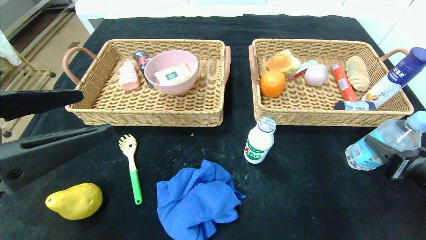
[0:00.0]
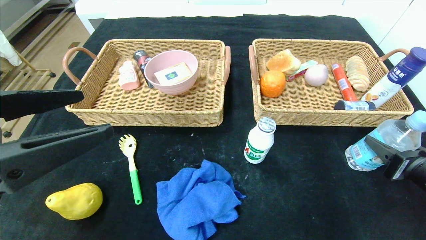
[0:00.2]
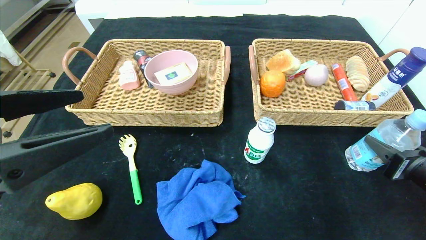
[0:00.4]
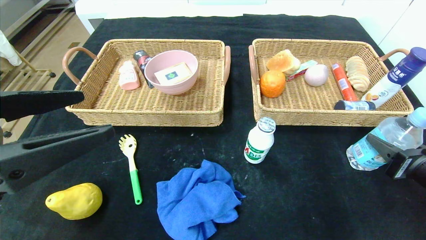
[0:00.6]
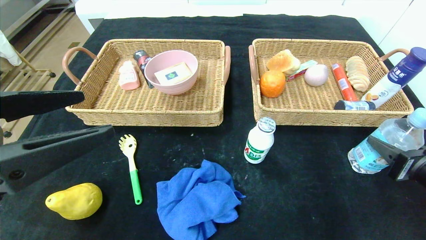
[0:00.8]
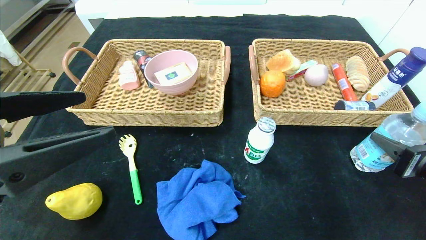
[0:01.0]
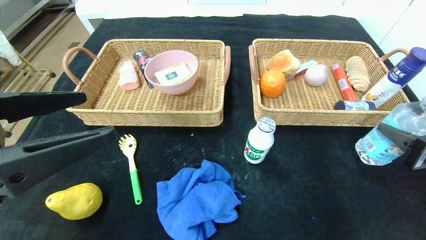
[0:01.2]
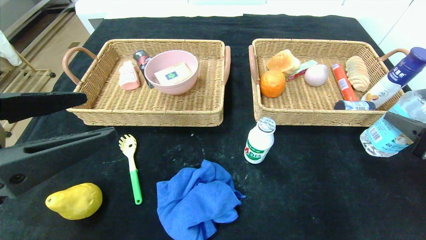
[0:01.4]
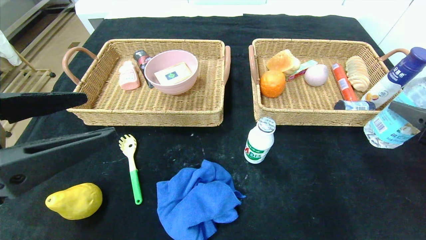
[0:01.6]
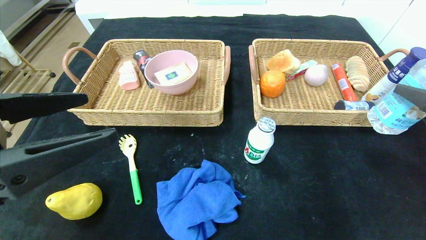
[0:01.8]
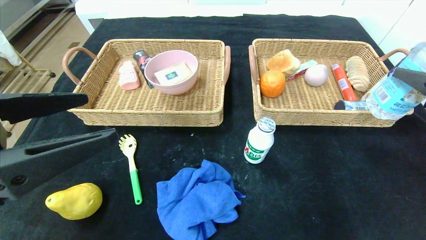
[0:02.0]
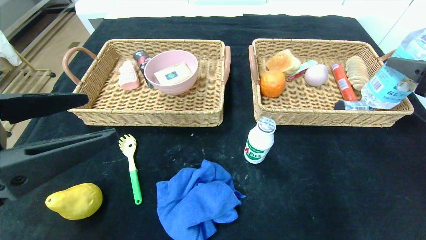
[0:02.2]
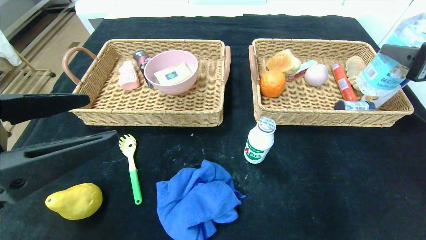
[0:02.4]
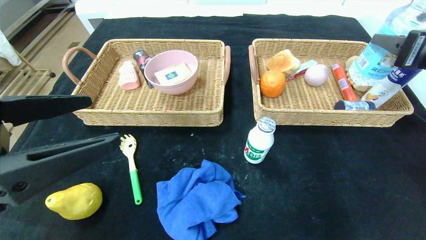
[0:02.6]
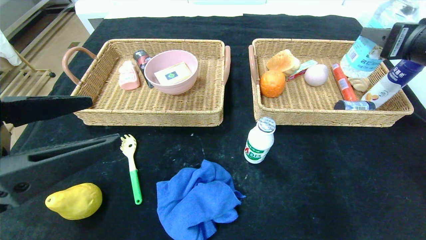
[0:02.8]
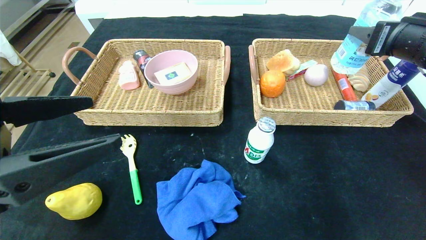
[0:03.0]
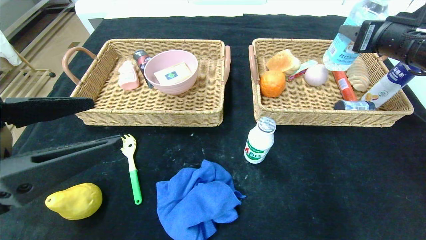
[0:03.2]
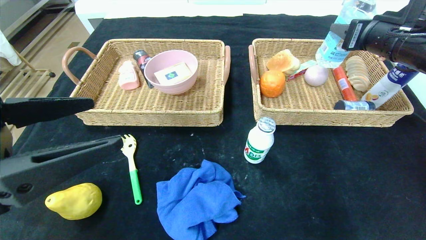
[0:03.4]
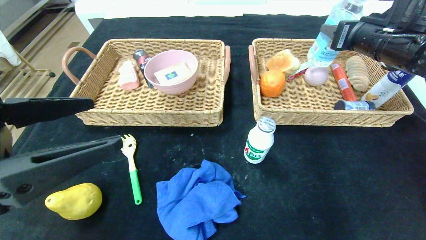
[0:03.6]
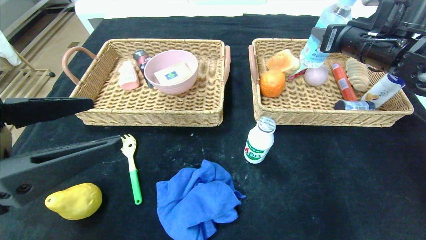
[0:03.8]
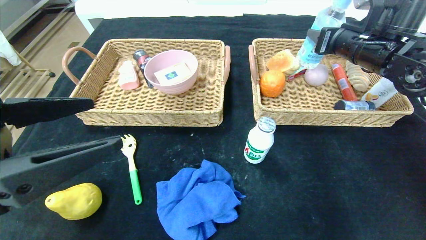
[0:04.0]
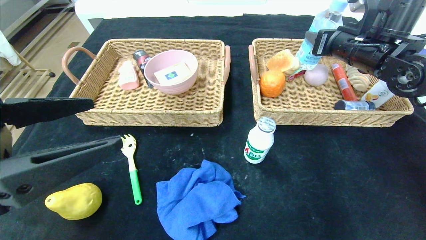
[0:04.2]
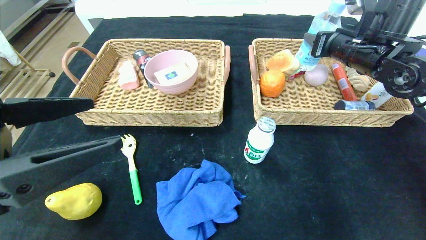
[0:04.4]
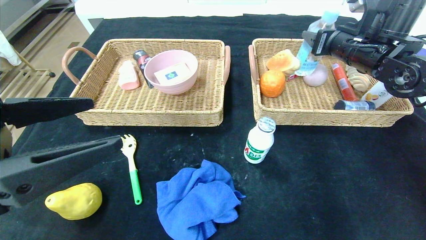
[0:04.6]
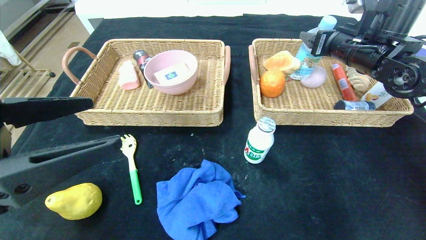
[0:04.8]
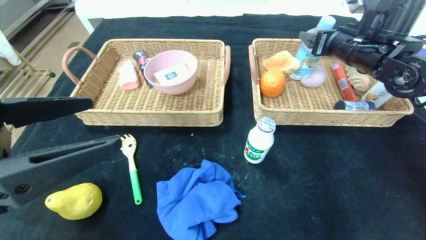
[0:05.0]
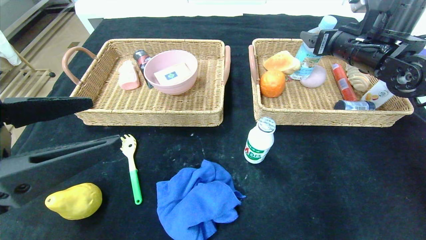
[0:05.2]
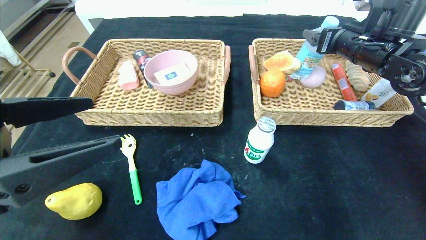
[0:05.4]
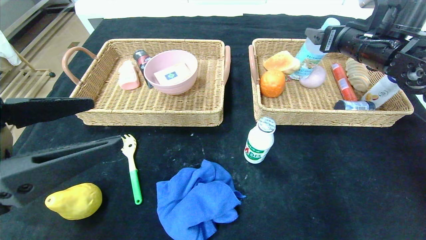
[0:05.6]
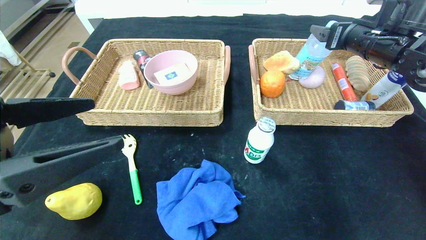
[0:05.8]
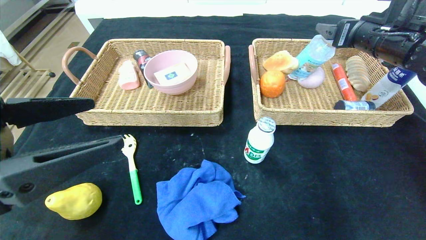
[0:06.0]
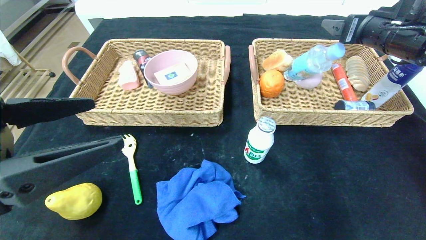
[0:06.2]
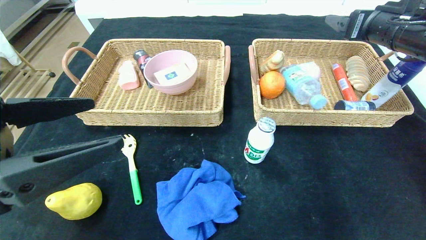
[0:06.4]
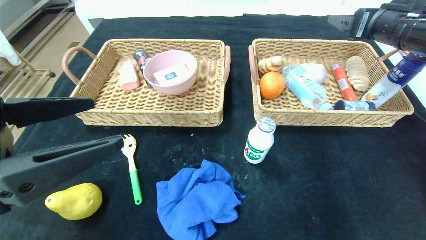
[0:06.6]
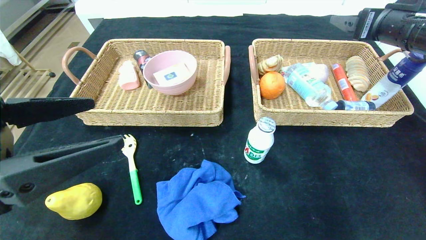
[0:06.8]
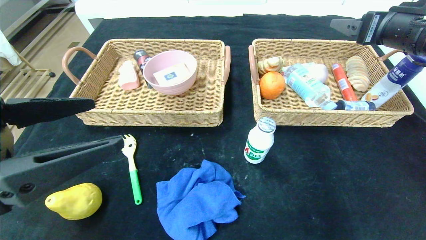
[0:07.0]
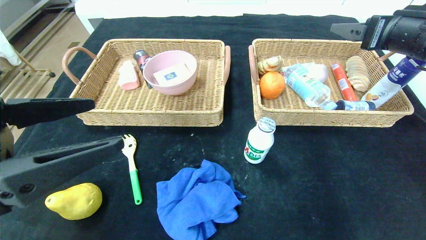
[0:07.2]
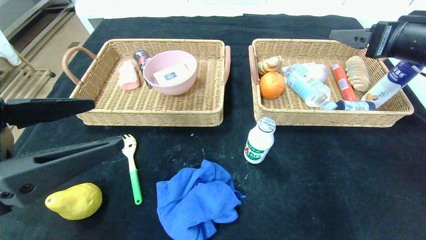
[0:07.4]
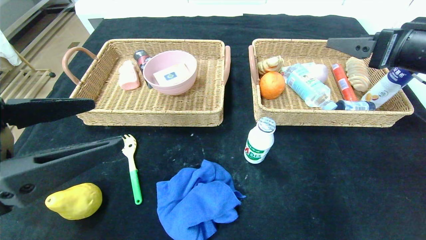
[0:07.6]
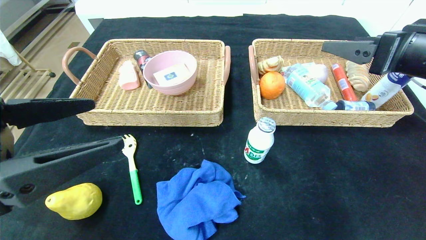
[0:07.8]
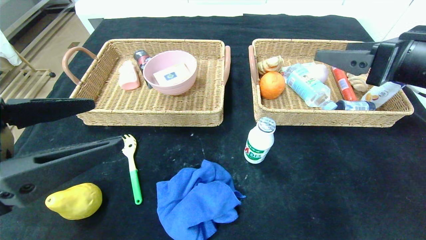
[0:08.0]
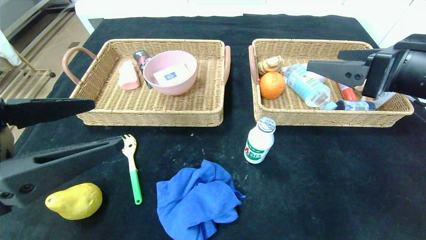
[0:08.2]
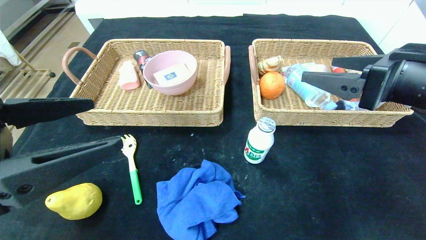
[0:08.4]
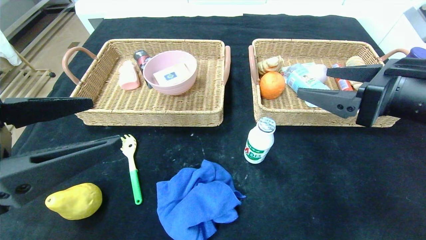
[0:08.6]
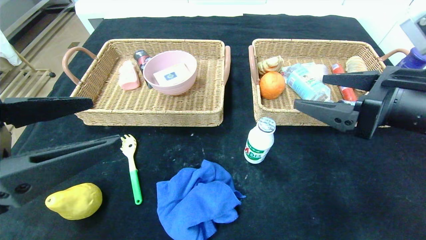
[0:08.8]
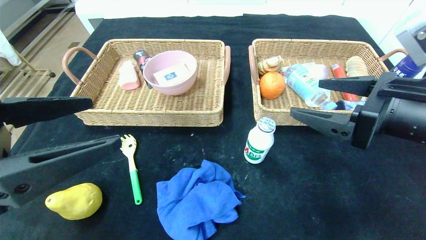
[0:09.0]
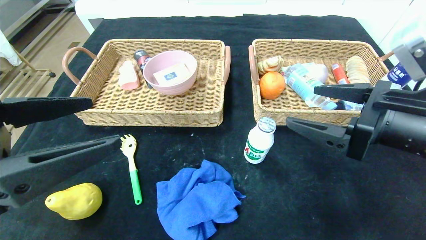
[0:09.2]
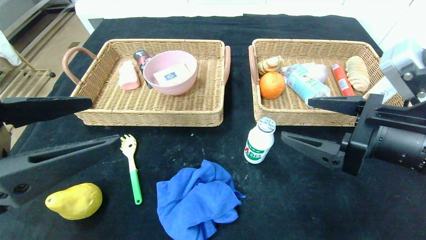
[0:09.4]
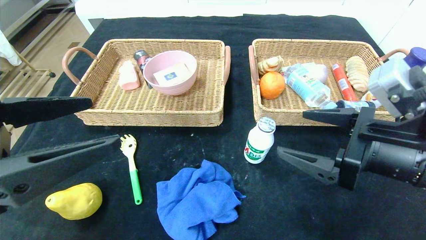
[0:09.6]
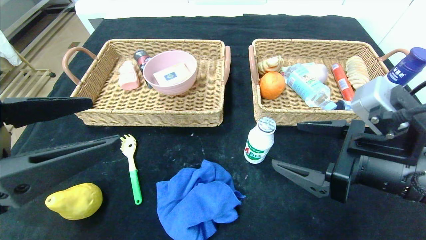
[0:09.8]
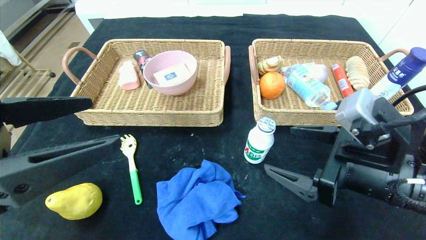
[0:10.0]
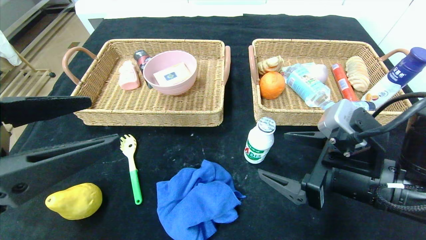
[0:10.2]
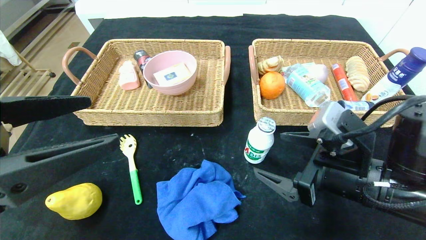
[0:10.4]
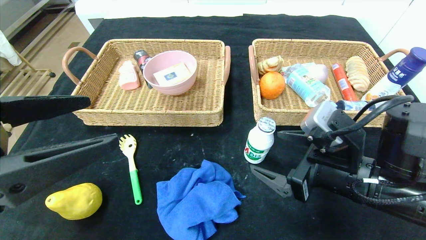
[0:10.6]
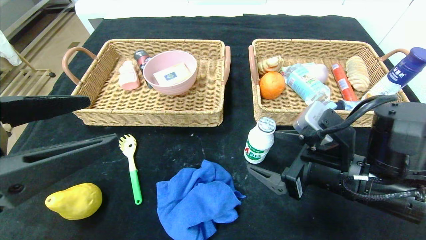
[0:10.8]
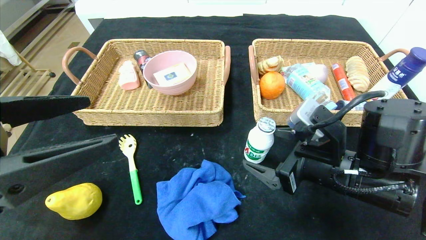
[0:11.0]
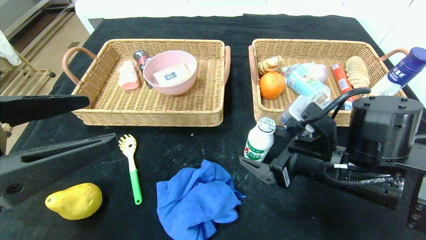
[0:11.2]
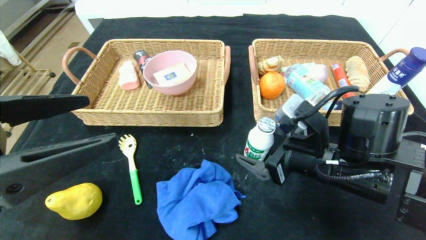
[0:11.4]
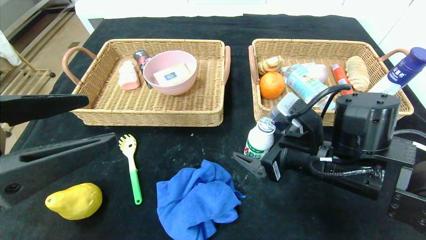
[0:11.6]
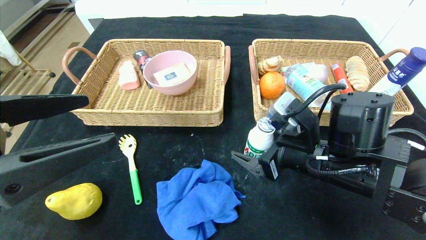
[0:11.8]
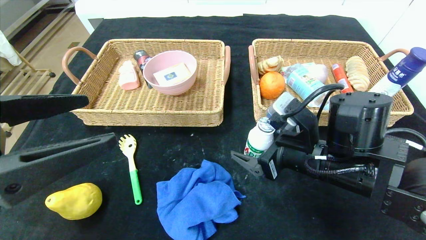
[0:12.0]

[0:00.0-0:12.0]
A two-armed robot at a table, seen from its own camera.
Step, 0:00.0 to 0:06.6: Grasp the soda water and put it in the right basket.
0:00.0 to 0:01.6: The right gripper moves upward, some 10 cm.
0:01.6 to 0:03.0: The right gripper travels forward and upward by roughly 15 cm.
0:03.0 to 0:04.4: The right gripper is displaced forward by some 10 cm.
0:04.4 to 0:06.0: The right gripper opens.
0:06.0 to 0:07.6: The right gripper travels backward by roughly 10 cm.
0:07.6 to 0:09.0: The right gripper moves backward, to the left and downward, approximately 10 cm.
0:09.0 to 0:10.4: The right gripper goes about 10 cm downward.
0:10.4 to 0:12.0: The right gripper shifts by approximately 5 cm.

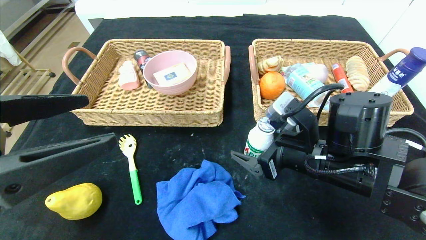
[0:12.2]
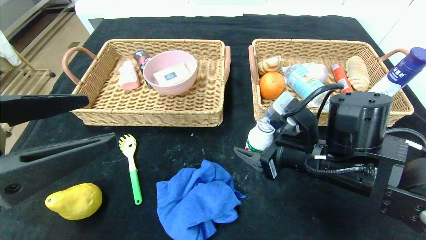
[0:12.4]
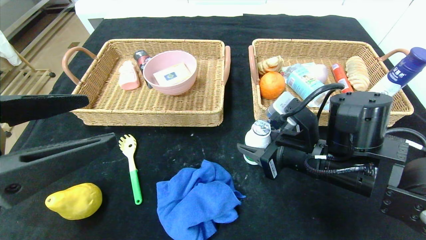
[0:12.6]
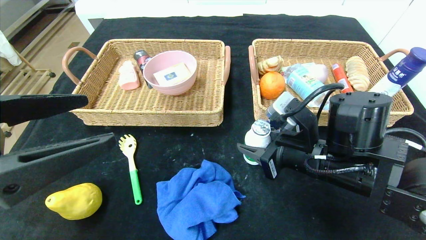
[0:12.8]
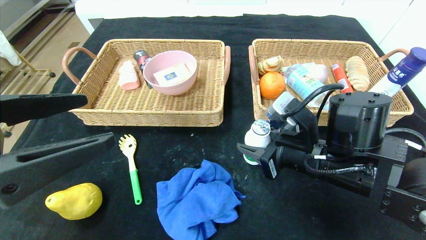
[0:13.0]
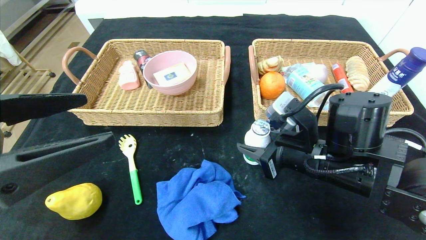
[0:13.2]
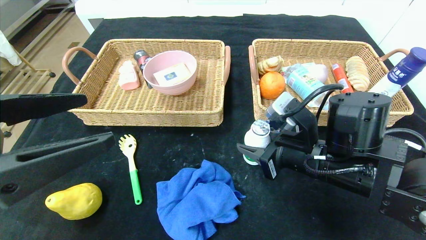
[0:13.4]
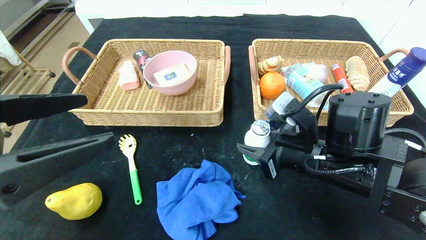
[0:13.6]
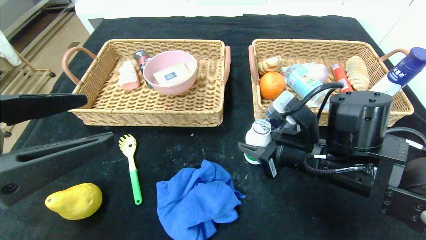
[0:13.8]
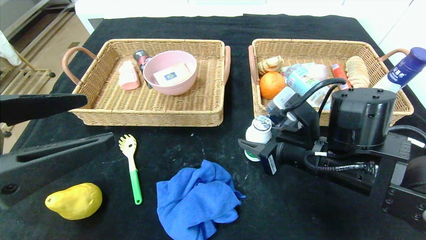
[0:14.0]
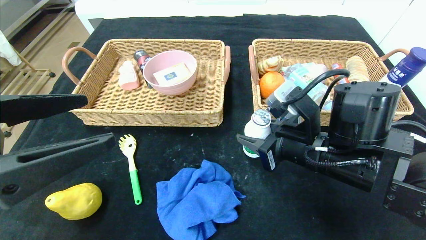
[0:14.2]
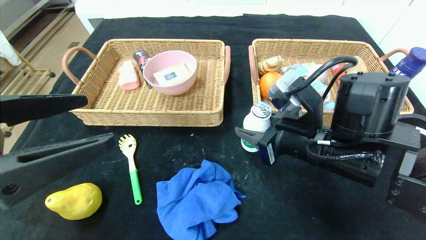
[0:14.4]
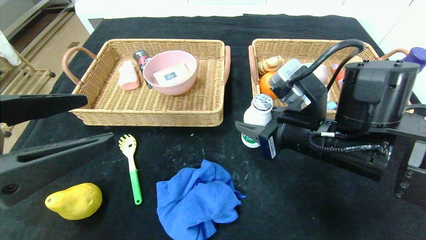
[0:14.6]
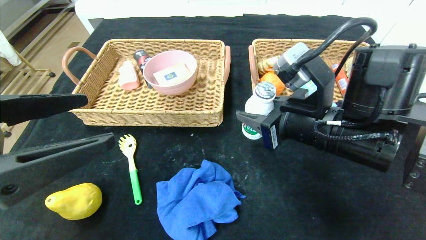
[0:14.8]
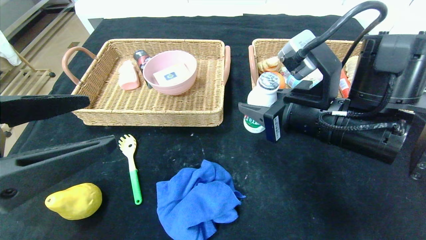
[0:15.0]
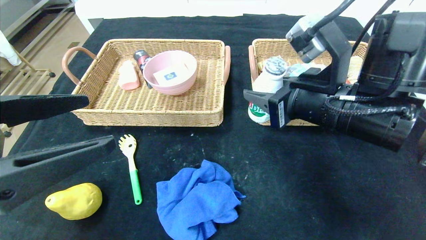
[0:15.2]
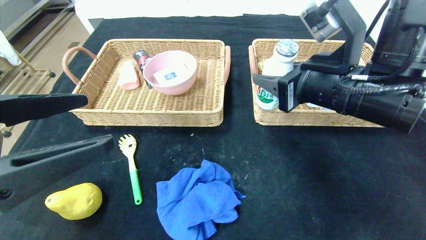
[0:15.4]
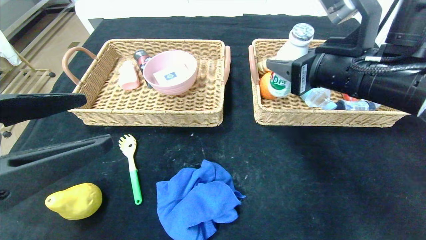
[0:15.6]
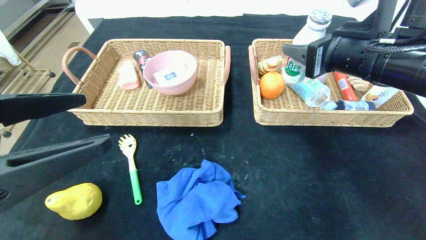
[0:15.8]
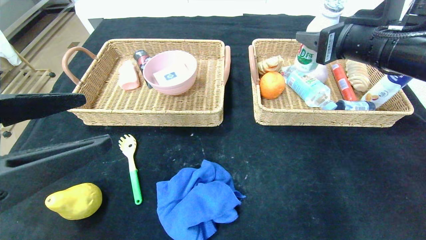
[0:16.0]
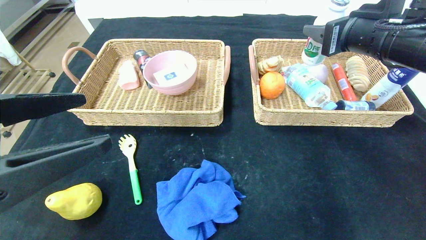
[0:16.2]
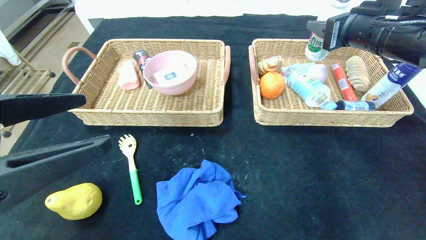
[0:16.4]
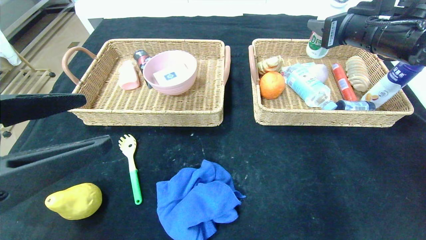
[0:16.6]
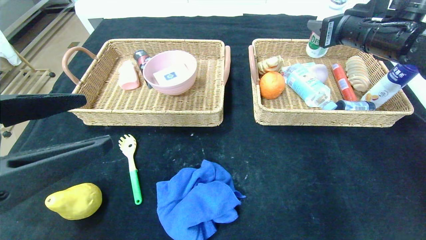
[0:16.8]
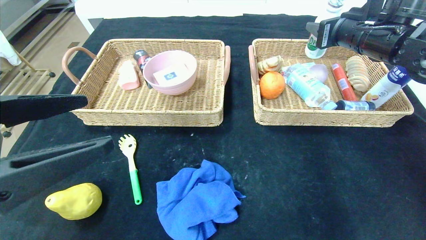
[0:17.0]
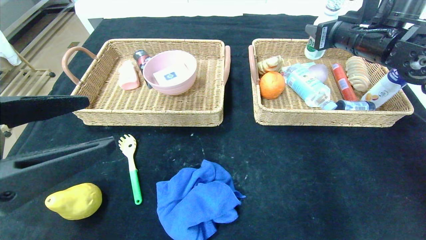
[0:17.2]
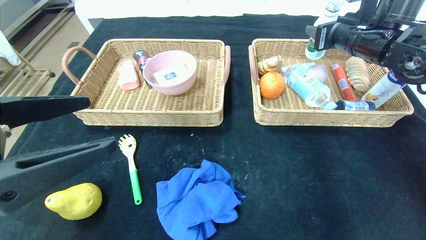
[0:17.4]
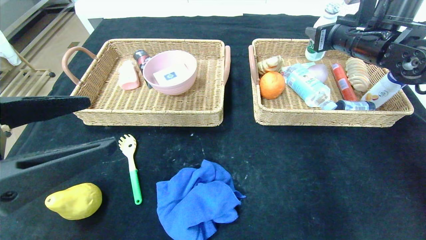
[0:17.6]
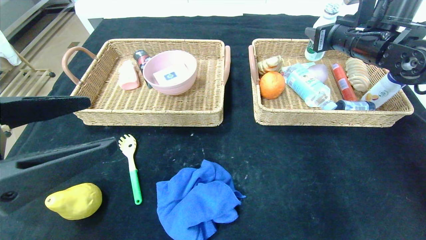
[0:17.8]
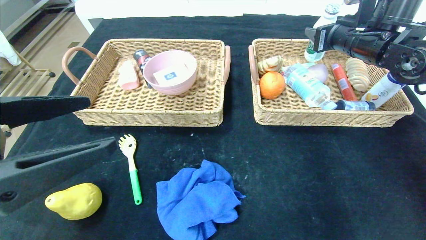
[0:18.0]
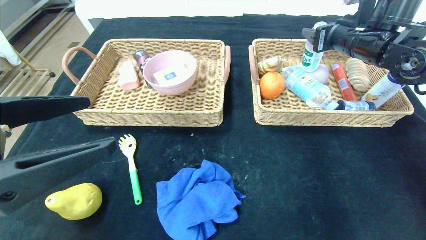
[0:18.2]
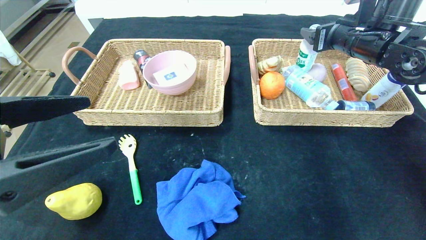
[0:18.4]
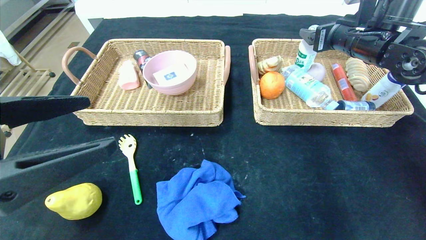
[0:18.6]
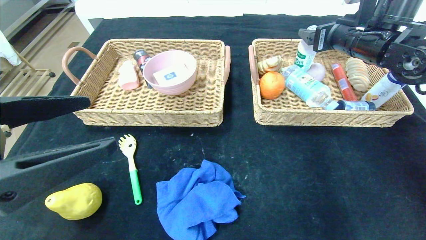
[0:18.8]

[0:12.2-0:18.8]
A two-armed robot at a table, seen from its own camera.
0:12.2 to 0:13.8: The right gripper closes.
0:13.8 to 0:15.4: The right gripper travels upward by roughly 10 cm.
0:15.4 to 0:17.2: The right gripper travels forward and to the right by approximately 15 cm.
0:17.2 to 0:18.8: The right gripper opens its fingers.
